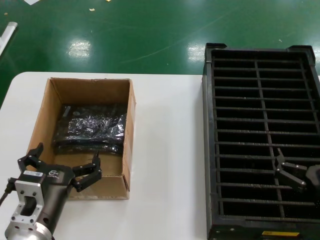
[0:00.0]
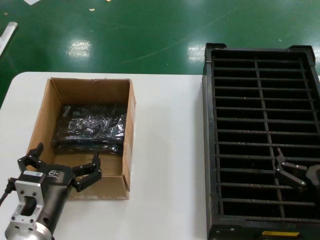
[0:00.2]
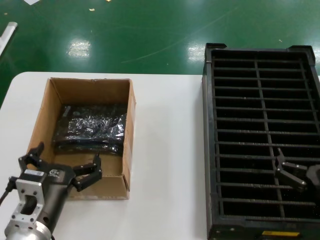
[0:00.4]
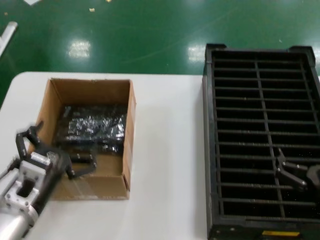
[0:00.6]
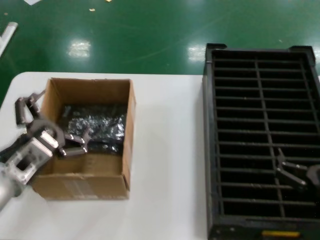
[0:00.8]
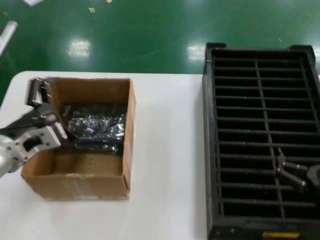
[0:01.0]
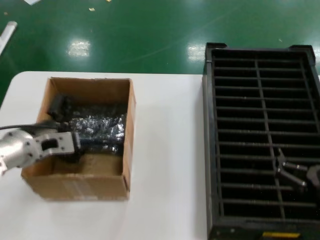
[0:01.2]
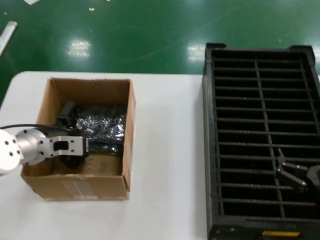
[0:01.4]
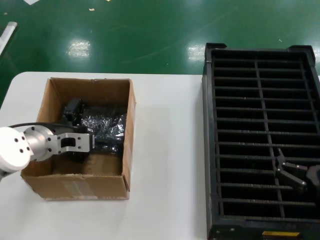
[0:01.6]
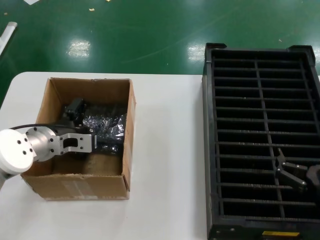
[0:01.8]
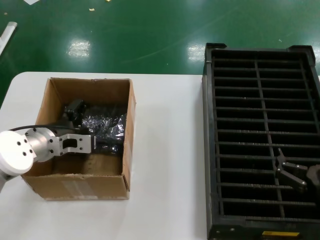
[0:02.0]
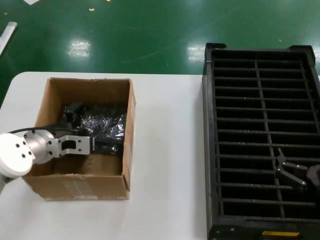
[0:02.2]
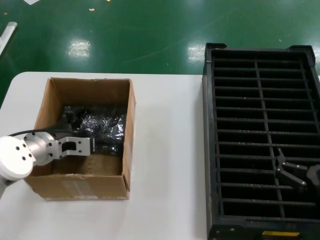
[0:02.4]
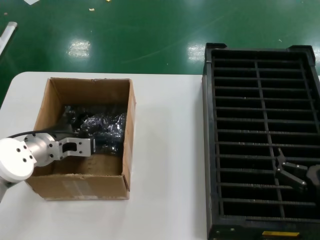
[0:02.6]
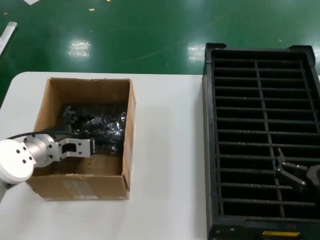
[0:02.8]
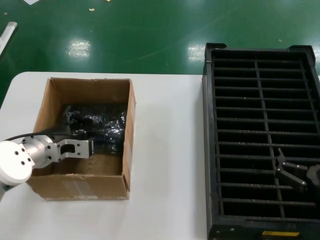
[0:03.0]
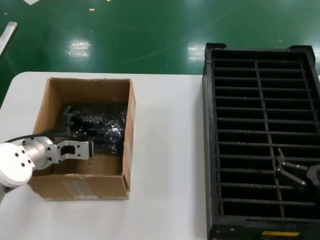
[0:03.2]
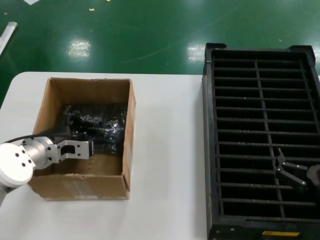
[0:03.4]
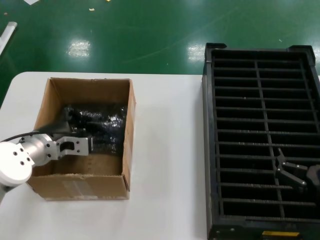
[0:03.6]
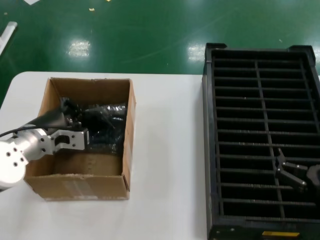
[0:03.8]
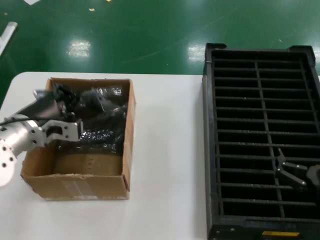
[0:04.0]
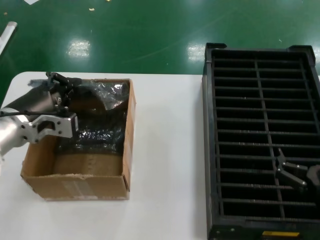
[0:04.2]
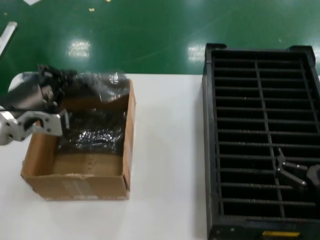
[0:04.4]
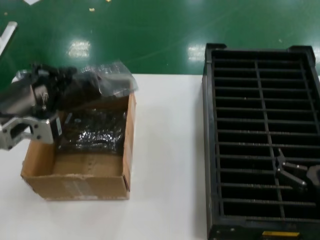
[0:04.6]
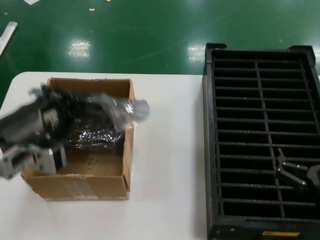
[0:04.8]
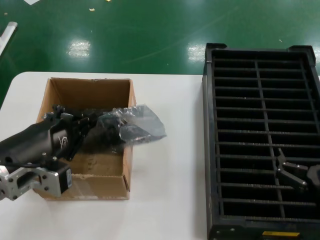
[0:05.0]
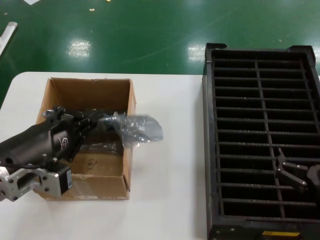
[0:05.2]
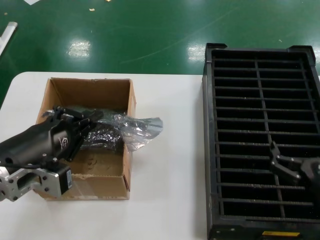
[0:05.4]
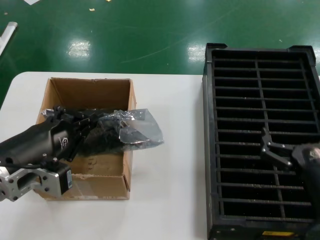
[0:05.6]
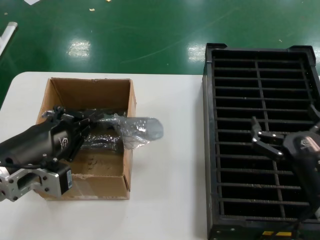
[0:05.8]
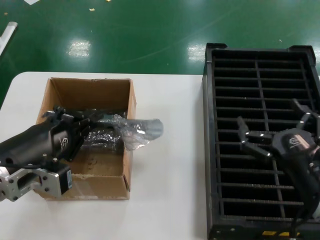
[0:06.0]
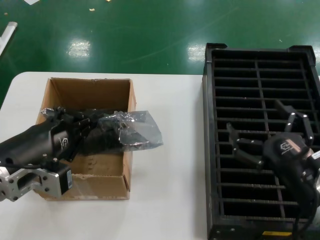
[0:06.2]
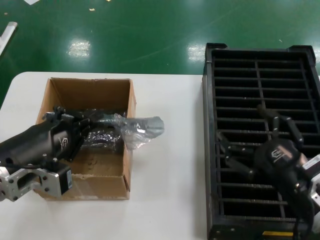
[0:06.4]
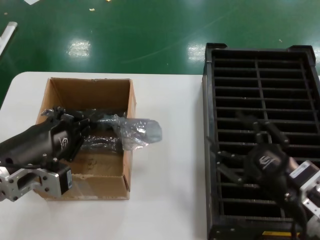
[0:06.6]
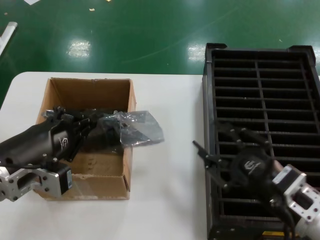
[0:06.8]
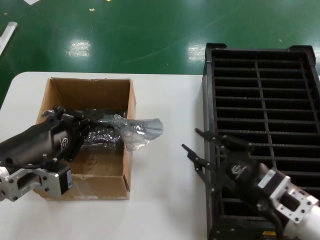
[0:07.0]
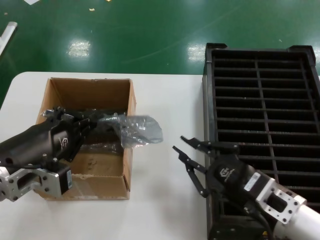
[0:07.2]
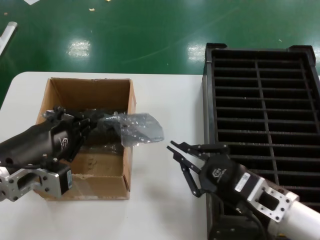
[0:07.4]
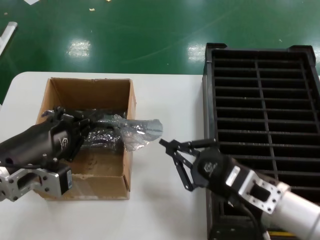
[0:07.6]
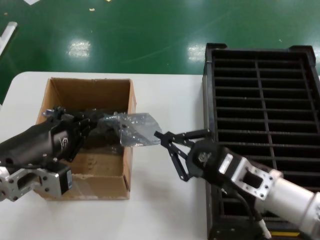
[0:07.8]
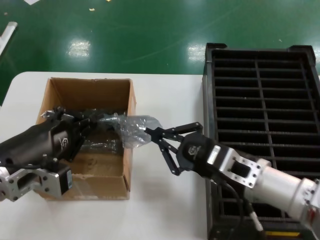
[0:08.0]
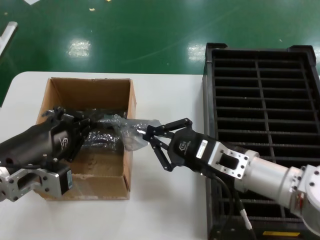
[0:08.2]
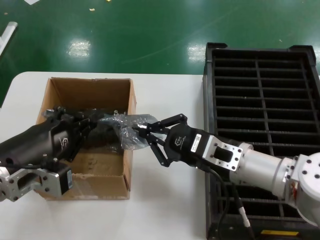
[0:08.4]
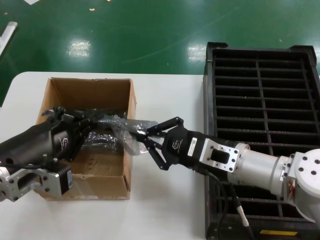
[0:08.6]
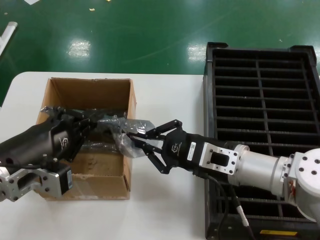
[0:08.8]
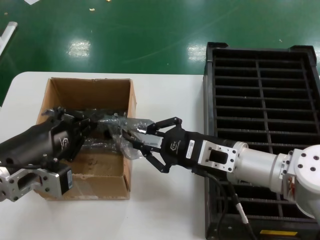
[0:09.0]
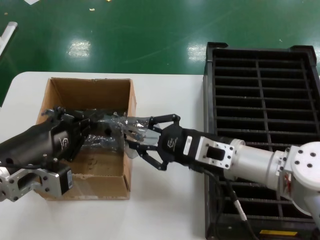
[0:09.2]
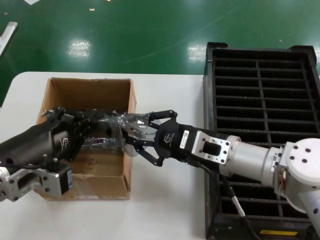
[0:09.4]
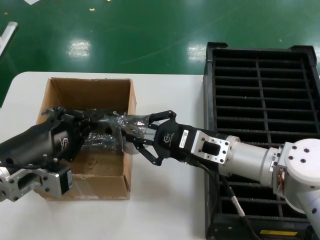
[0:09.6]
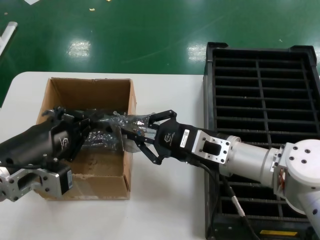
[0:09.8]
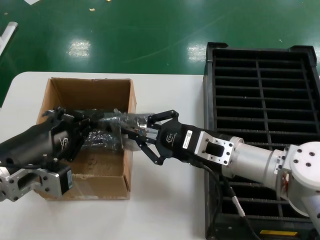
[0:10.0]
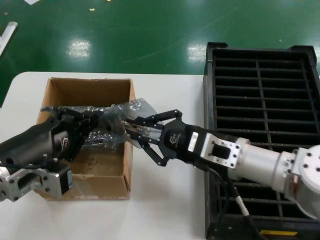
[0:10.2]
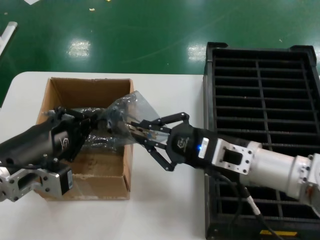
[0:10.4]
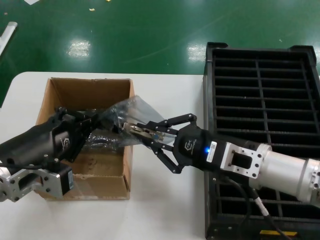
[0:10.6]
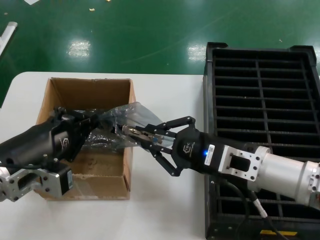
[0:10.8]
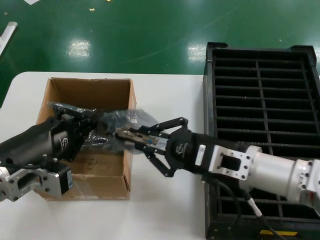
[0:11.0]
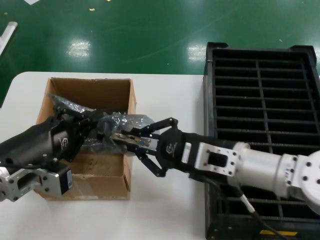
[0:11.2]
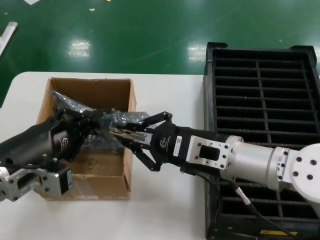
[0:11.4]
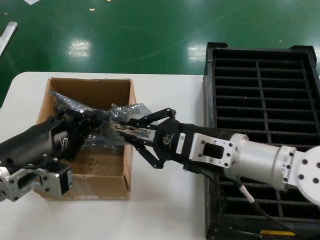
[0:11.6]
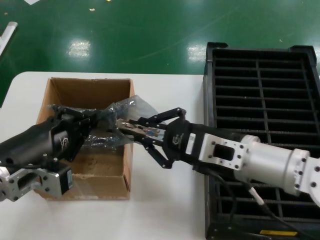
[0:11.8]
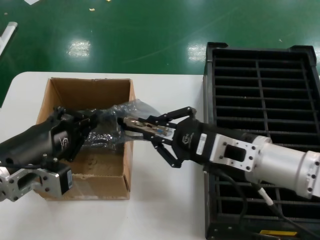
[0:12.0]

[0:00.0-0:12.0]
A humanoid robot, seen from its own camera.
Task of the whole recording: take out graphics card from box remove packaging put into black container.
Step, 0:00.0 to 0:03.2: Grasp the bag.
Step, 0:03.4 to 0:05.4: Lift the bag.
0:00.0 to 0:01.6: The left hand heads forward and upward, covering about 20 cm.
0:01.6 to 0:03.0: There are only small adjustments of the hands.
0:03.0 to 0:04.4: The left hand shifts approximately 15 cm upward and backward.
0:04.4 to 0:06.0: The right hand shifts by roughly 5 cm; the left hand heads backward, covering some 10 cm.
0:06.0 to 0:07.6: The right hand moves to the left, approximately 5 cm.
0:07.6 to 0:09.0: The right hand is displaced forward by roughly 10 cm.
0:09.0 to 0:10.4: The hands stay close to where they were, moving slightly.
0:10.4 to 0:12.0: The hands stay close to where they were, moving slightly.

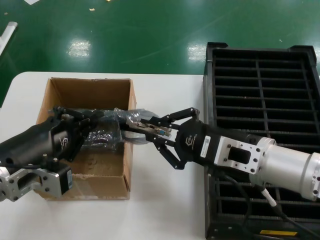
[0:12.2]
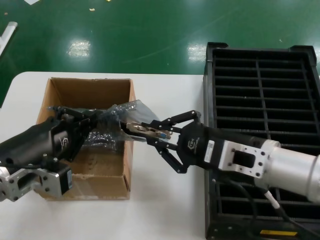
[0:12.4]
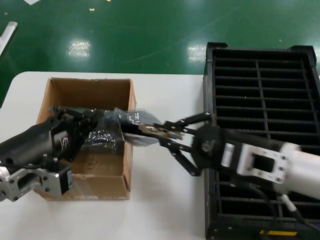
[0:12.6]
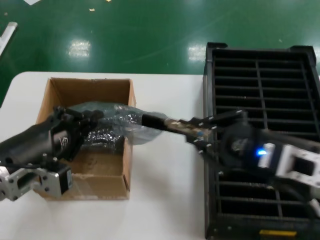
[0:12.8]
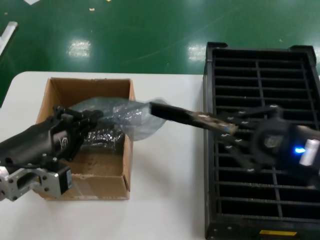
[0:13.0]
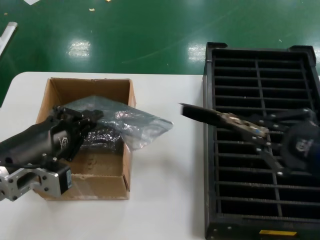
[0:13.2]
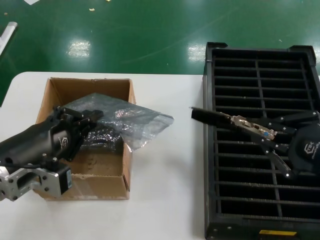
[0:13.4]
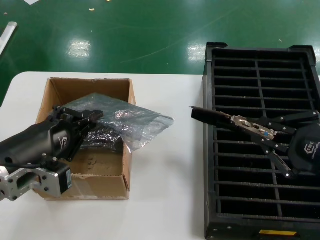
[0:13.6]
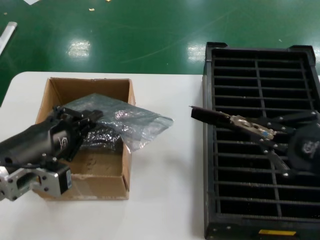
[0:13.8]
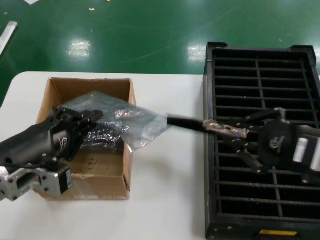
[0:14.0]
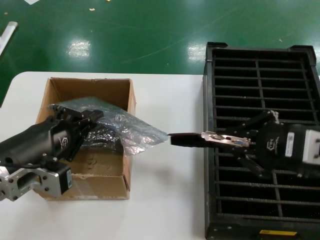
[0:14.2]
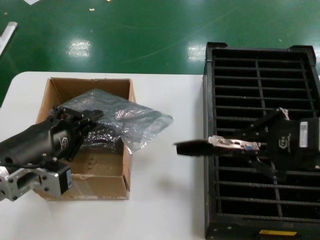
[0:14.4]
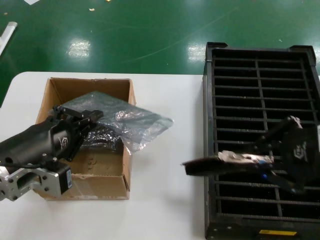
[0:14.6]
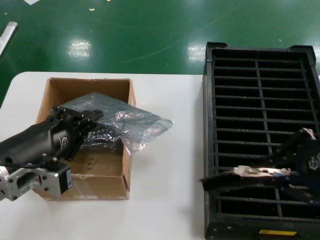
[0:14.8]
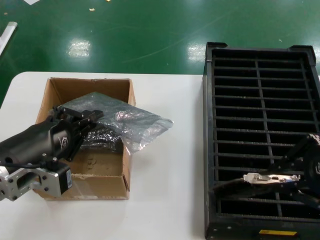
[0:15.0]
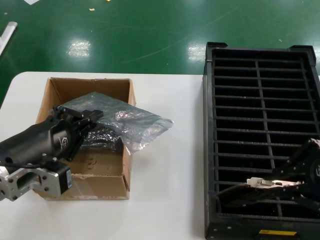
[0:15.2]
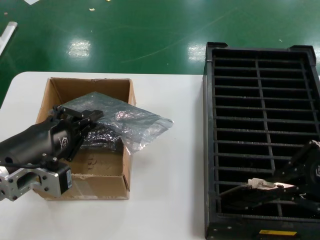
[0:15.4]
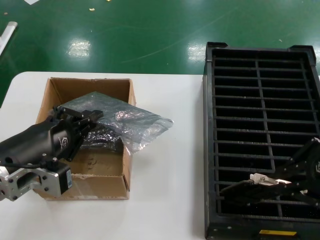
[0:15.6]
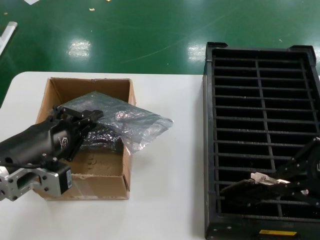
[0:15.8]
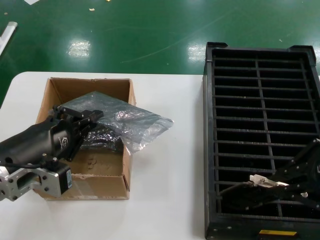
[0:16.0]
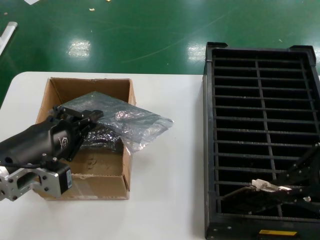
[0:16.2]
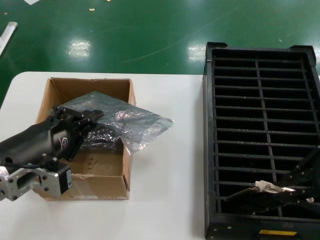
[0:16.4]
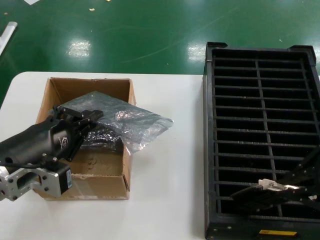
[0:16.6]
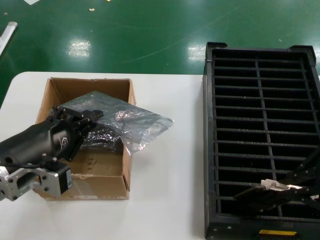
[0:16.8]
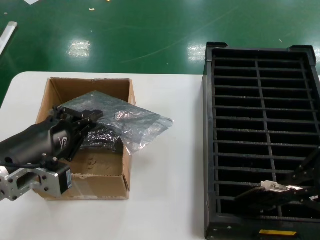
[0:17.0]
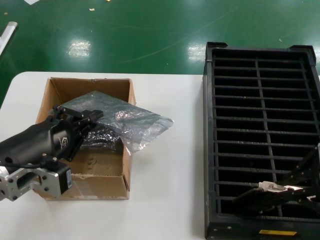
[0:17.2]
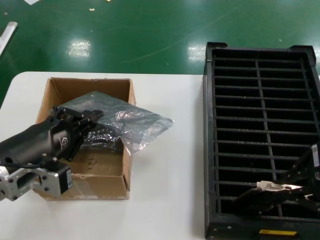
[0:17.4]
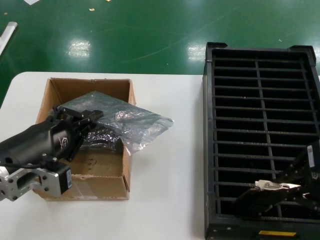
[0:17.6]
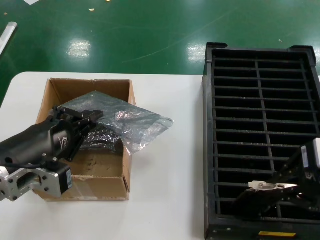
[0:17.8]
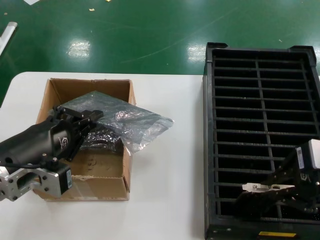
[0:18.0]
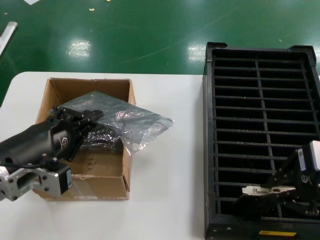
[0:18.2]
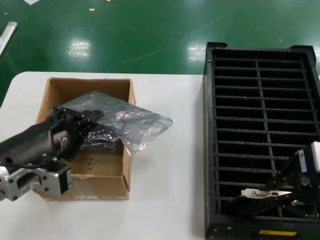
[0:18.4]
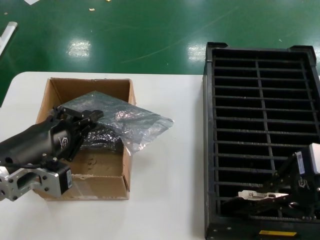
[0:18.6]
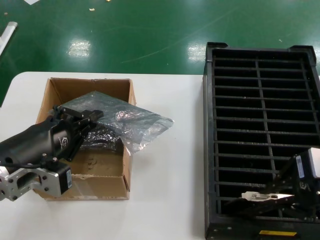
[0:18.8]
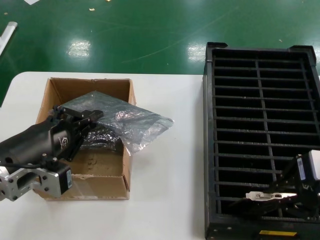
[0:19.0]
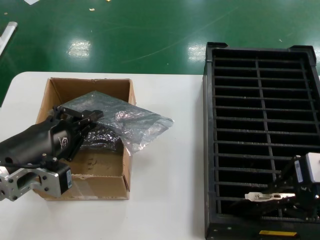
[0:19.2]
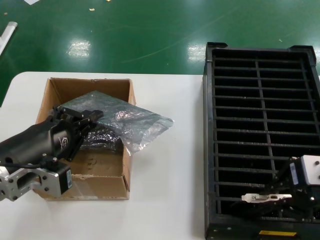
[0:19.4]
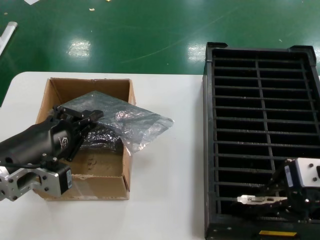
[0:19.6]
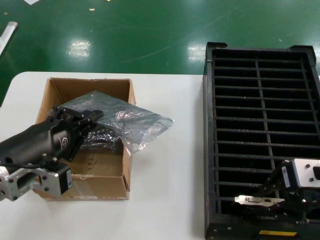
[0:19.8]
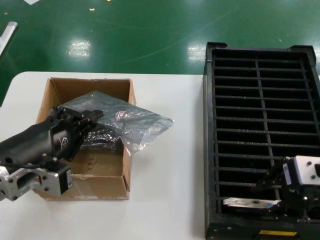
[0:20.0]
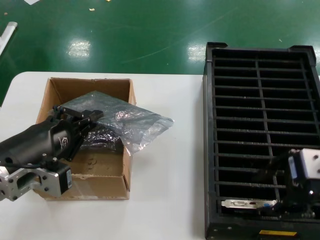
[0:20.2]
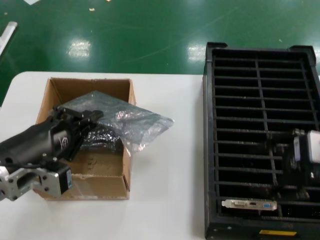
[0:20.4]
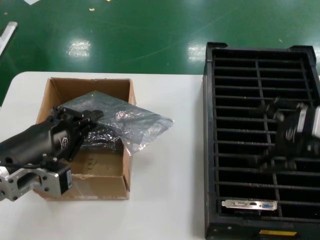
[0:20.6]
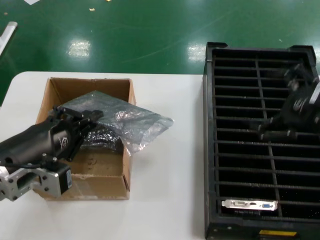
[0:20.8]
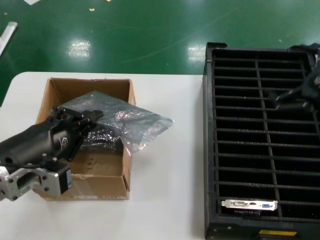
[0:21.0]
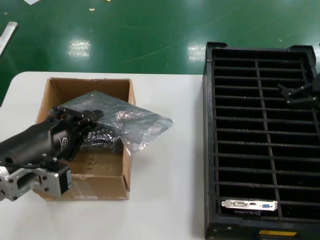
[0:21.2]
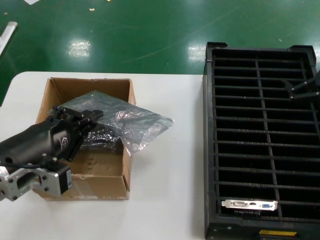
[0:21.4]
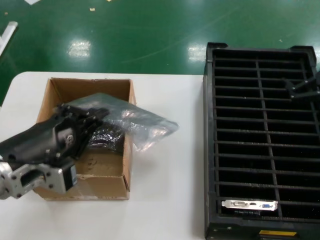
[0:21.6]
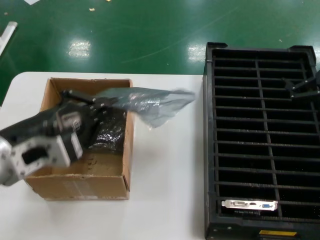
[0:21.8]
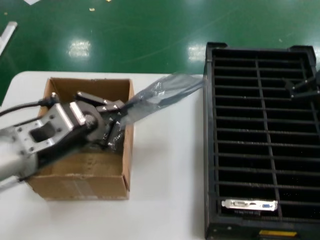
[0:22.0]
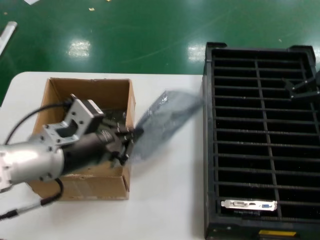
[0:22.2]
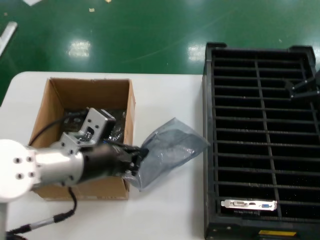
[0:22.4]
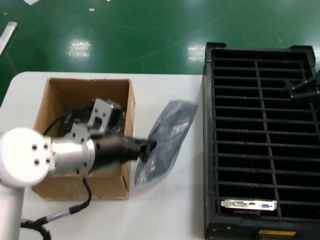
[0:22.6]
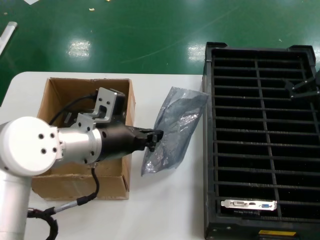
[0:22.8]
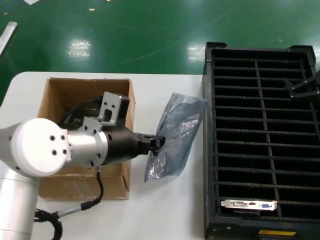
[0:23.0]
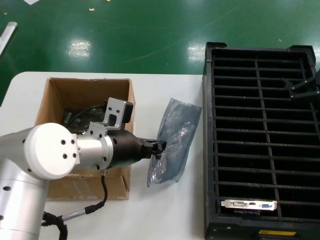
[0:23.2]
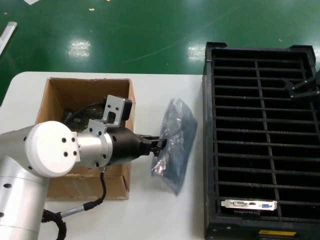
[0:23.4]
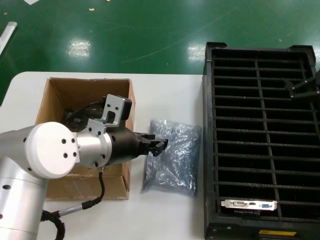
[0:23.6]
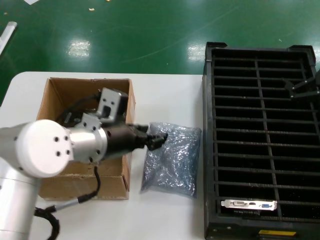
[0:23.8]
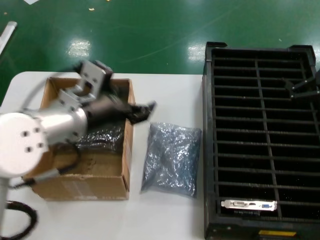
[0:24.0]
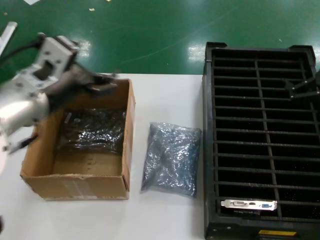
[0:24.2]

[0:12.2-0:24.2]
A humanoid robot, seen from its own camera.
Task of the whole recording: take out graphics card from box remove packaging put into black container.
Step, 0:13.2 to 0:20.4: Place the hard disk in the hard disk enclosure.
0:12.2 to 0:13.8: The right hand is displaced to the right and backward by about 15 cm.
0:13.8 to 0:15.2: The right hand heads upward, covering approximately 10 cm.
0:15.2 to 0:18.2: The hands move only a little.
0:18.2 to 0:19.8: The hands make only small movements.
0:19.8 to 0:21.2: The right hand shifts some 10 cm to the right and forward.
0:21.2 to 0:22.6: The left hand goes some 15 cm forward and to the right.
0:22.6 to 0:24.2: The left hand shifts some 5 cm upward.
